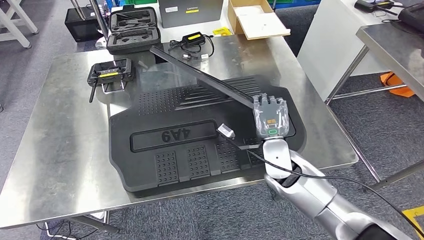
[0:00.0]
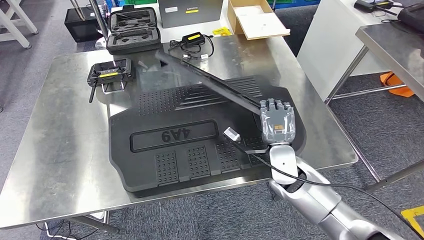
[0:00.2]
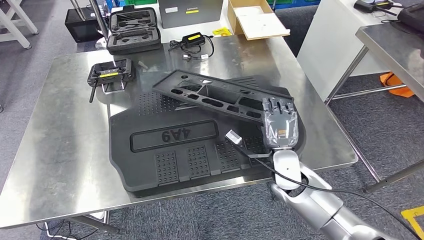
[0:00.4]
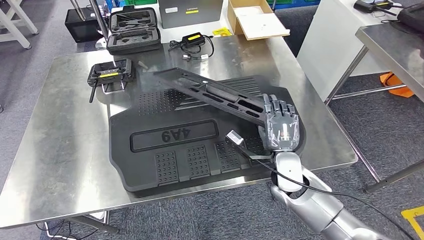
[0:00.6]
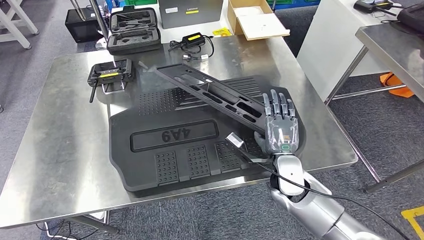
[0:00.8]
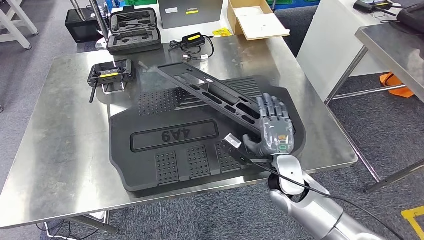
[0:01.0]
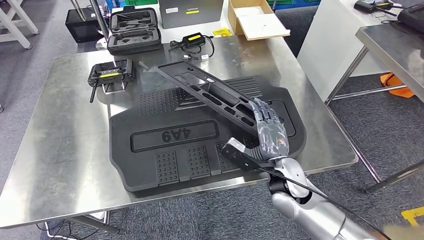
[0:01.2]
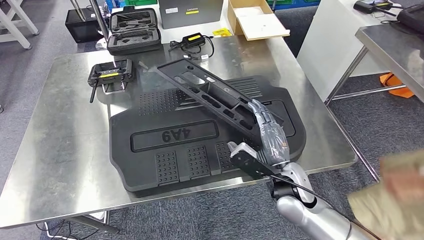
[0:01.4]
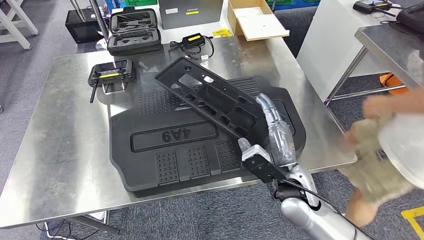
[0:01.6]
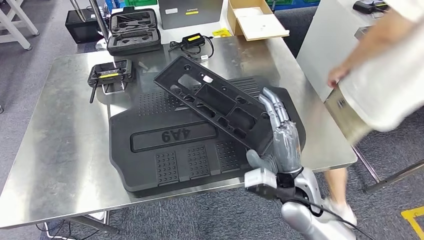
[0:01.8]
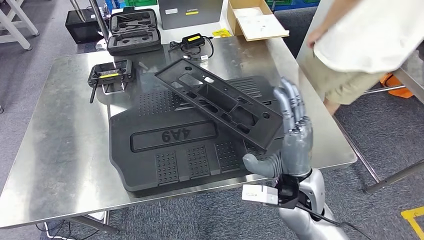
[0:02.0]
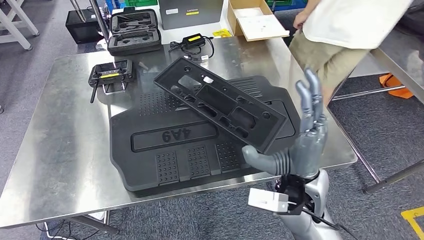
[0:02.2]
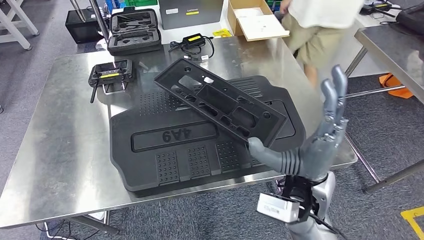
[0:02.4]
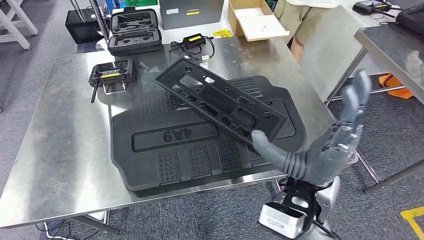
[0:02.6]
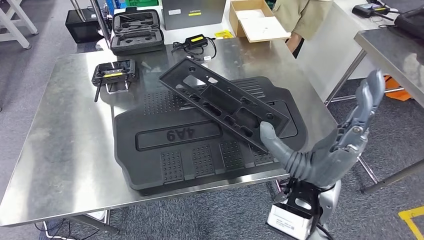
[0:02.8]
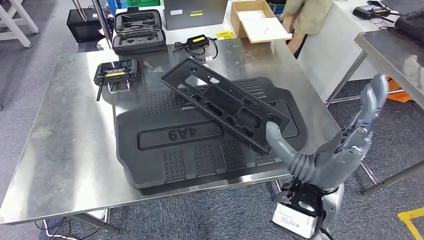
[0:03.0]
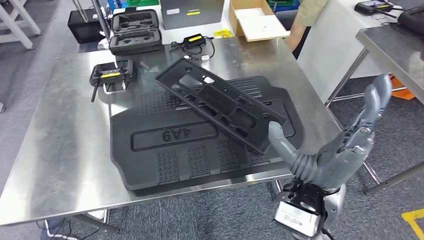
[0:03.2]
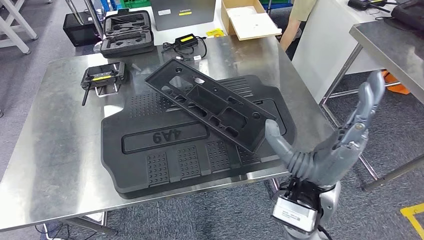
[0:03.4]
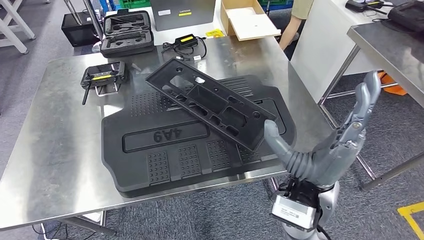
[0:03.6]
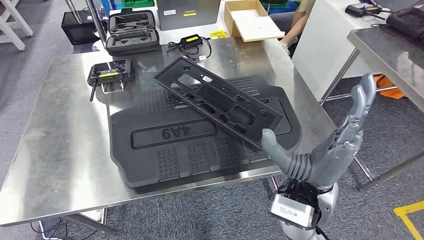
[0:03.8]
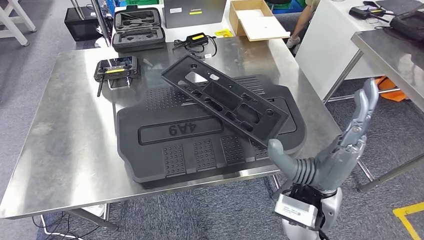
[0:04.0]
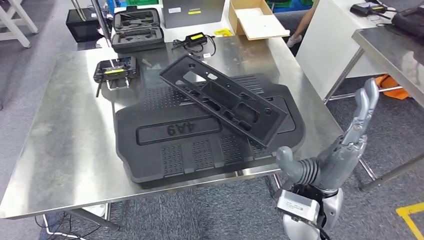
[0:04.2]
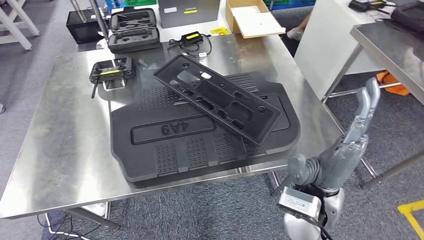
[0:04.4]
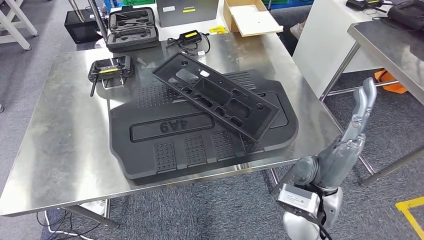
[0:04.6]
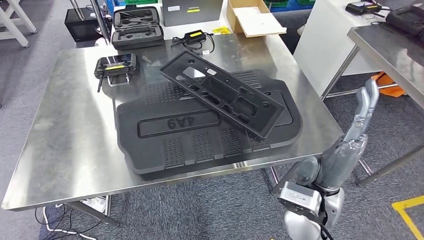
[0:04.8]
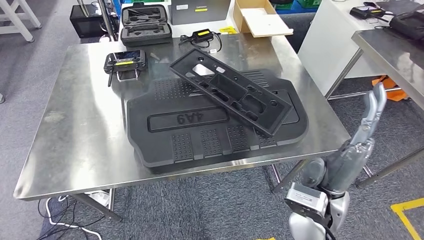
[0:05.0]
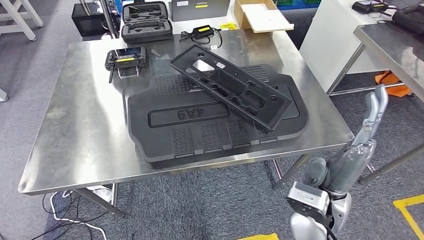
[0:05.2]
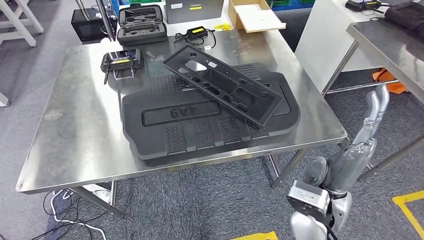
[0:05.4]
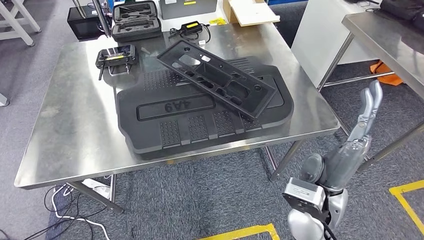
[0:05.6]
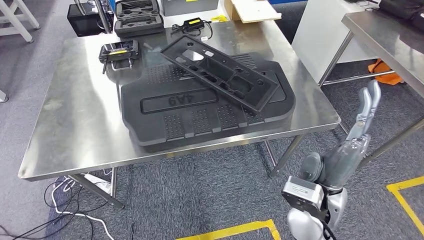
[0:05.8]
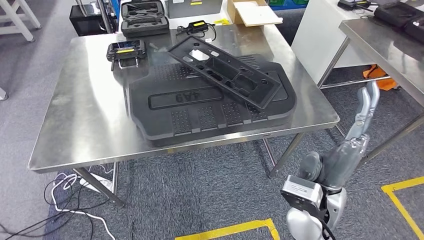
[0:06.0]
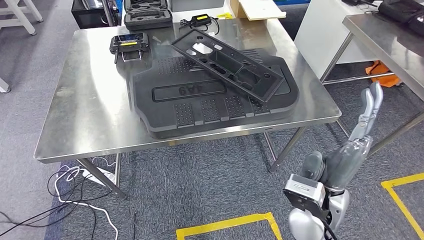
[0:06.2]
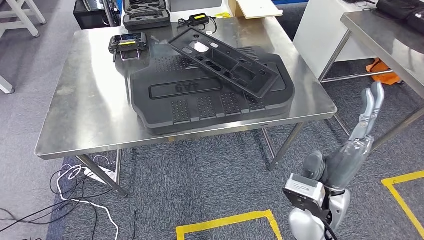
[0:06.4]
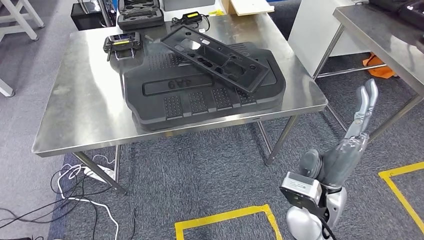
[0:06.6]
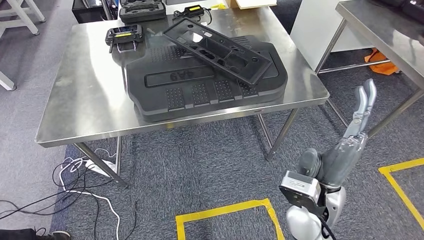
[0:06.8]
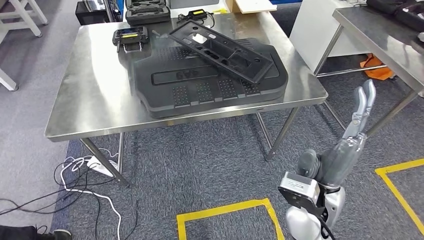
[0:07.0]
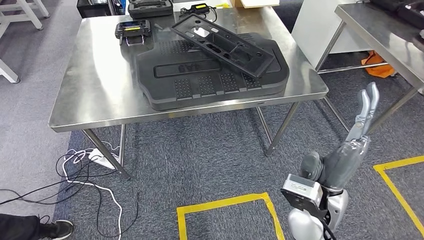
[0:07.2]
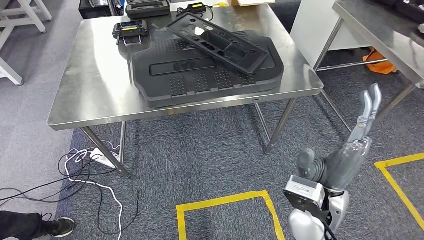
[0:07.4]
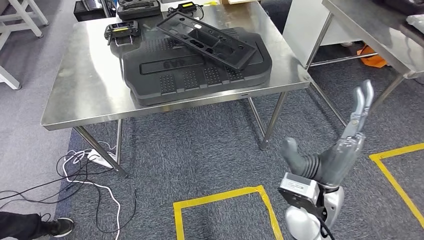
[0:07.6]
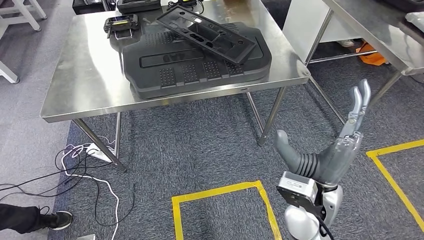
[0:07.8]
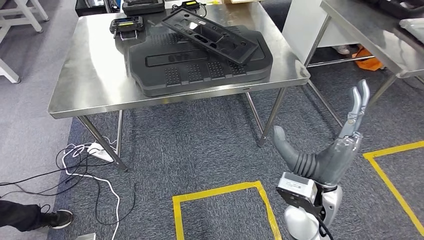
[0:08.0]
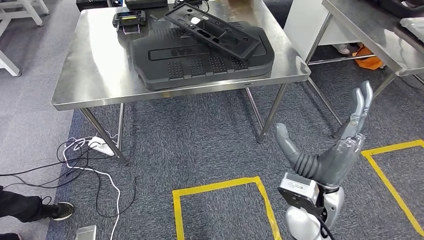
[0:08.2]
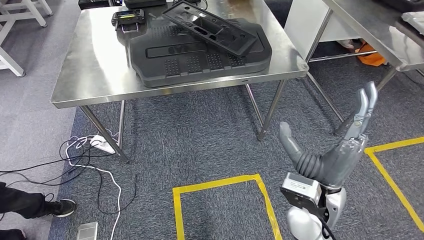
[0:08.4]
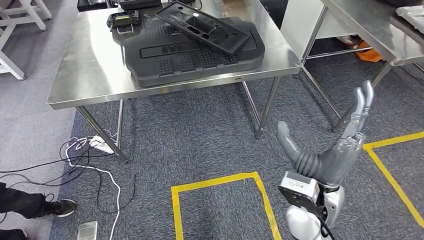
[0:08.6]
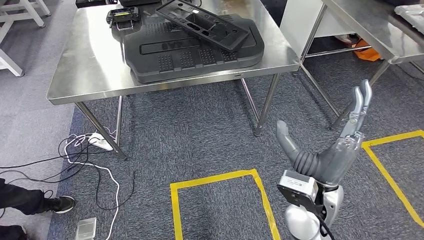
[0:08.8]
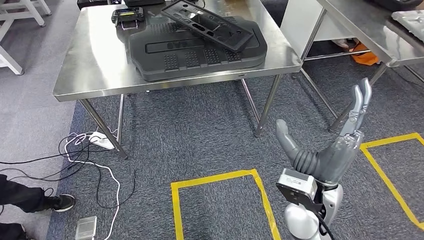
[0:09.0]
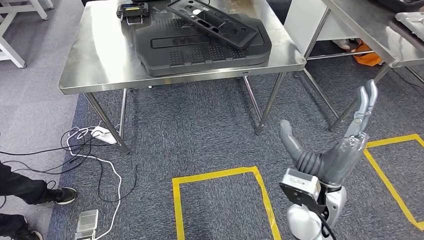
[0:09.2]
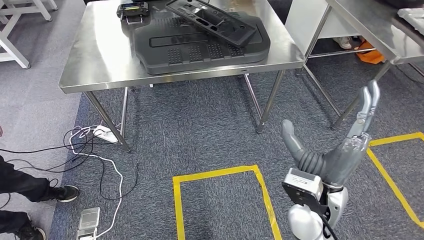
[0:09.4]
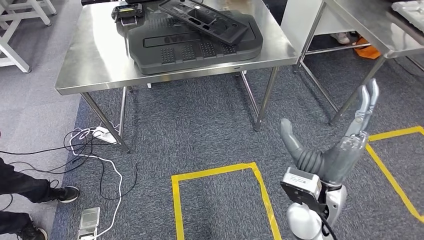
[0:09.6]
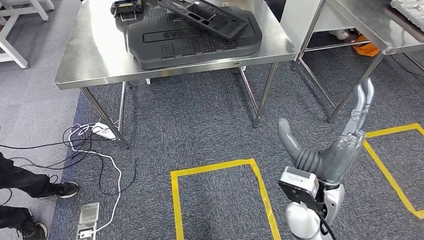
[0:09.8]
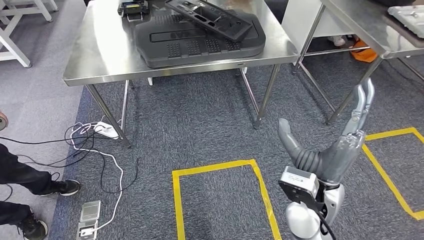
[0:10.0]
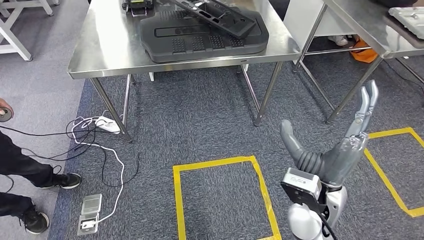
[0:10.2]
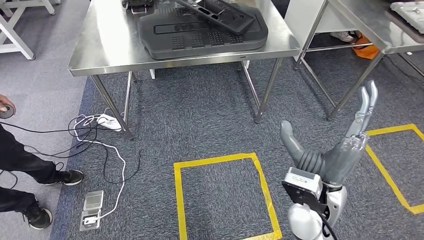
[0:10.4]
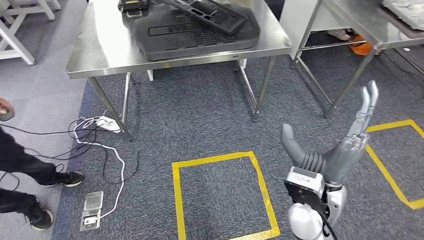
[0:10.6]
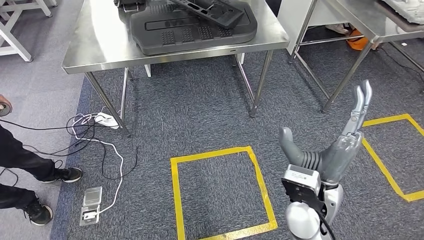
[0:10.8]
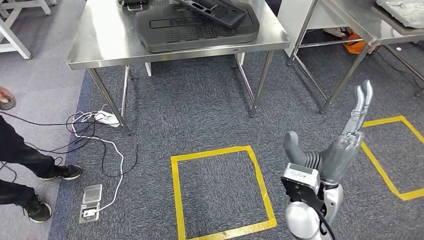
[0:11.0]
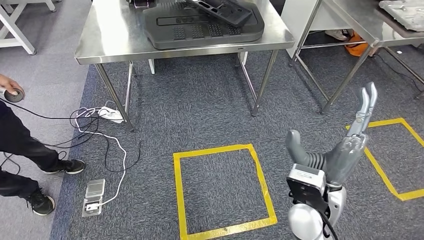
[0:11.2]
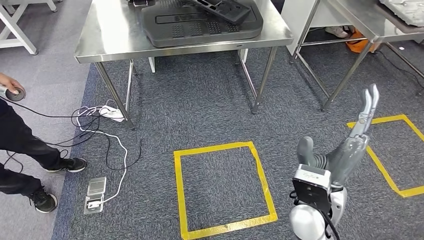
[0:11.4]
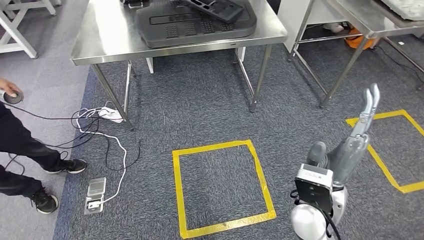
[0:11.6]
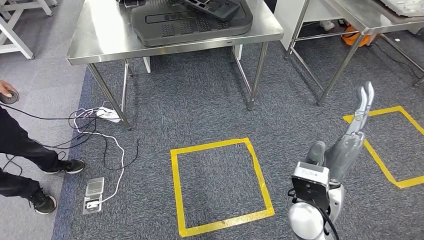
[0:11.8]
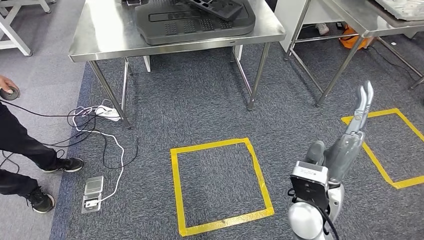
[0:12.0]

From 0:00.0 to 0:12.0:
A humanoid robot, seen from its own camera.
Step, from 0:00.0 to 0:07.4: Insert the large material into the corresponding slot on the workbench.

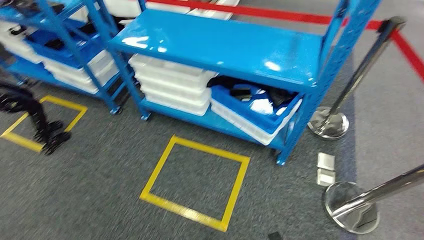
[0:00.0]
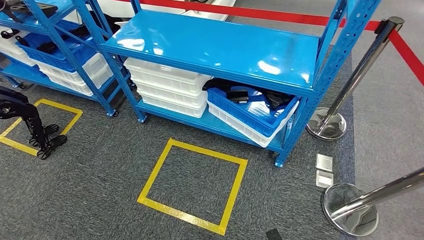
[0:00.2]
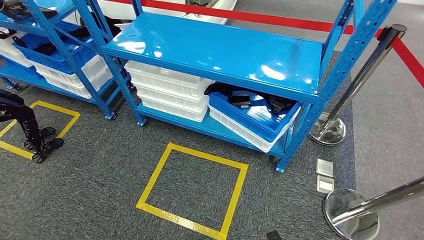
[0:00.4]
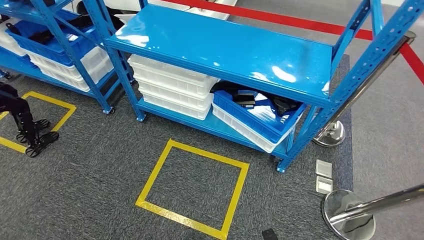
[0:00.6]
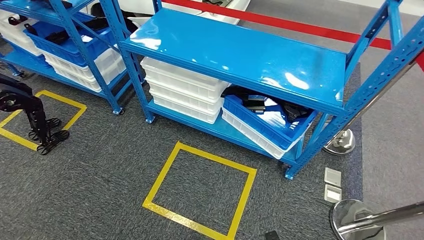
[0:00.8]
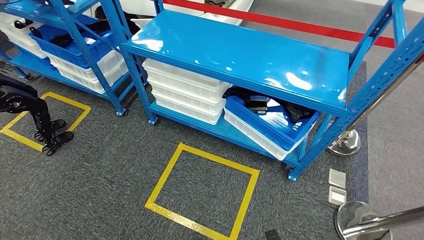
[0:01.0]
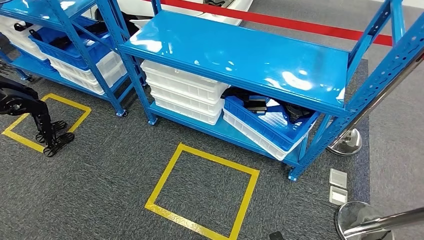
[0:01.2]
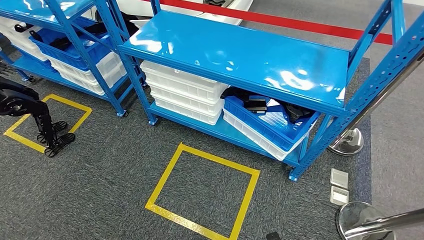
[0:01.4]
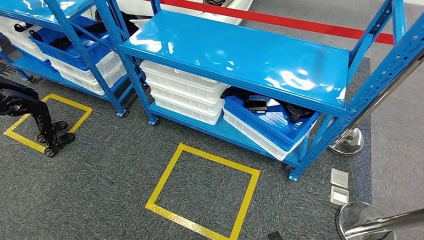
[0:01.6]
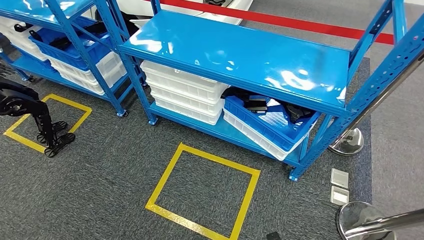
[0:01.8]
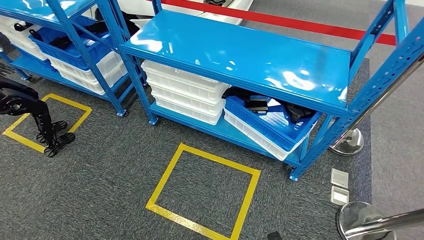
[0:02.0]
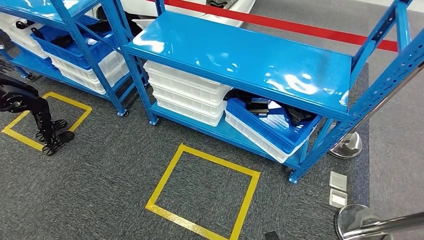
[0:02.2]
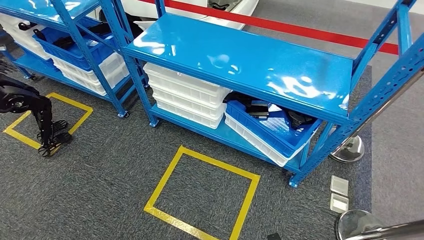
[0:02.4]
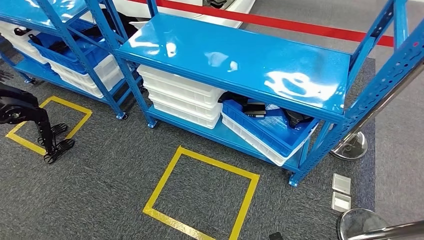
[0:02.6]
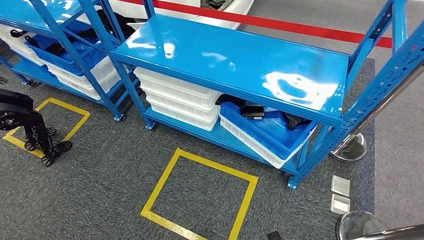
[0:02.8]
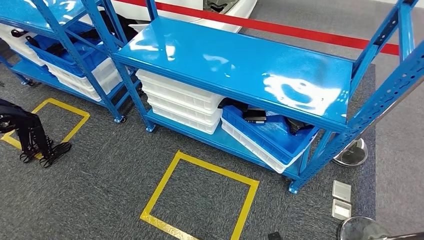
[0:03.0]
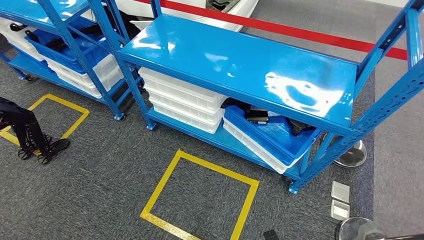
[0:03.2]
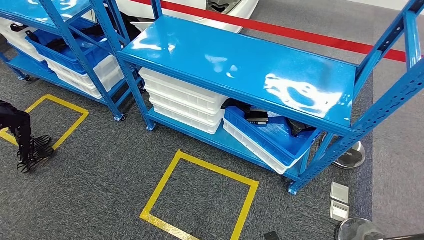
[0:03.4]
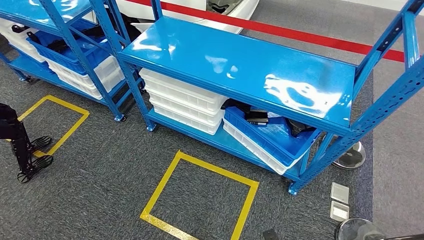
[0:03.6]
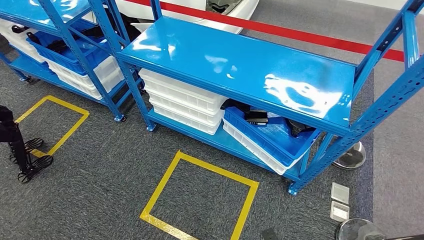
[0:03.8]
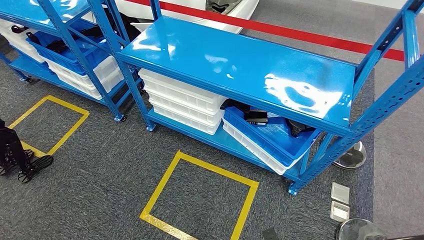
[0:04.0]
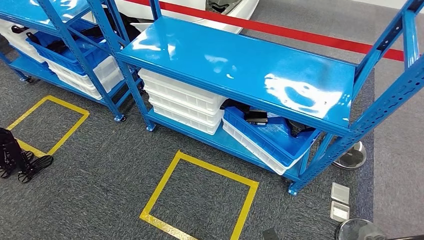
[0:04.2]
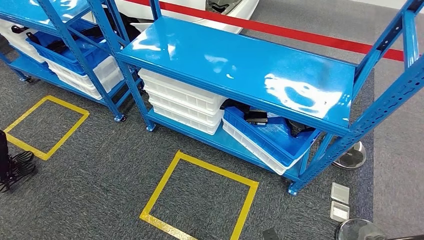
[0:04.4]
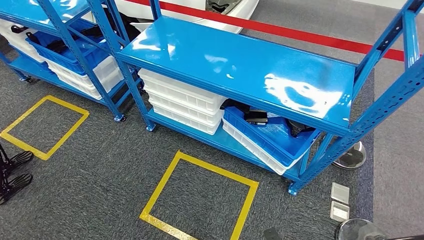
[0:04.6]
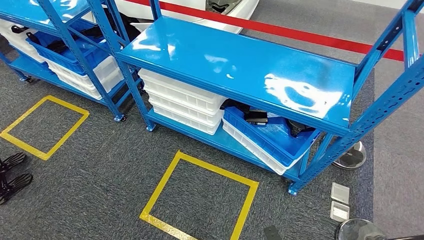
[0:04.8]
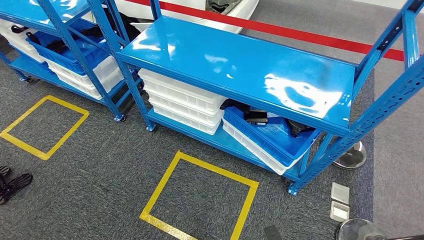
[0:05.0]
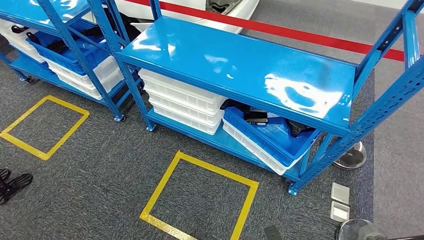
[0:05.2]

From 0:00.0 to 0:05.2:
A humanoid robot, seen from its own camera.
From 0:03.4 to 0:05.2: The hands stay close to where they were, moving slightly.
